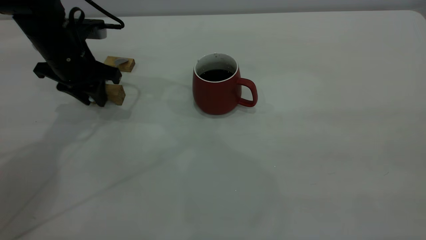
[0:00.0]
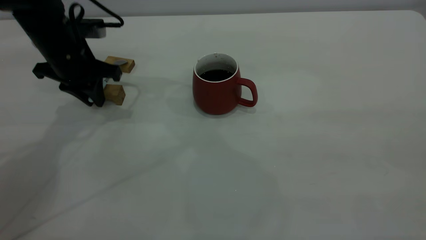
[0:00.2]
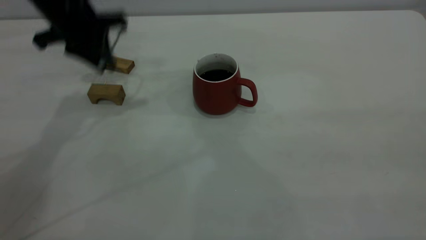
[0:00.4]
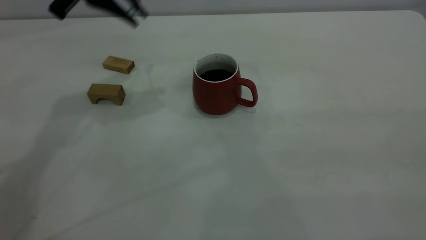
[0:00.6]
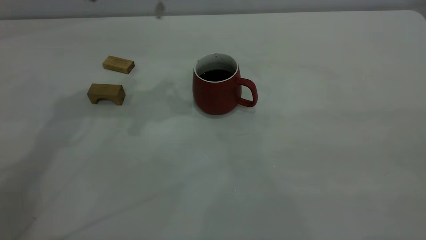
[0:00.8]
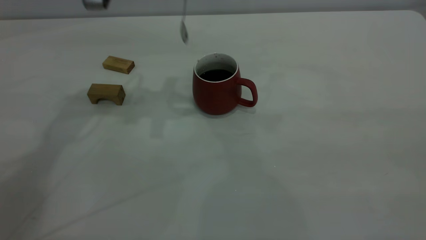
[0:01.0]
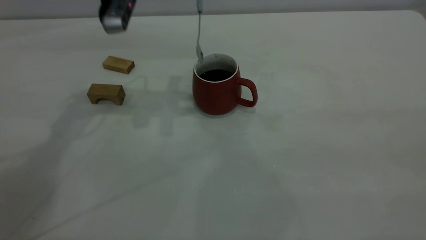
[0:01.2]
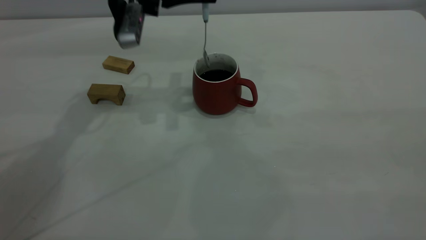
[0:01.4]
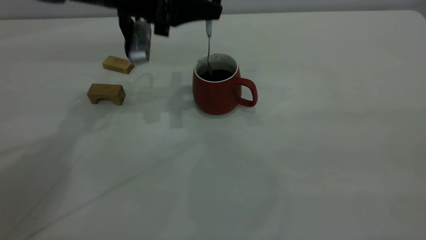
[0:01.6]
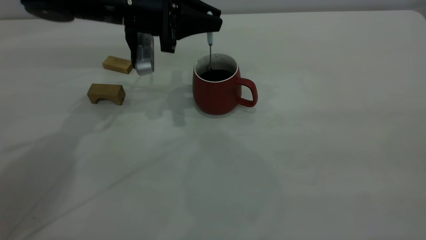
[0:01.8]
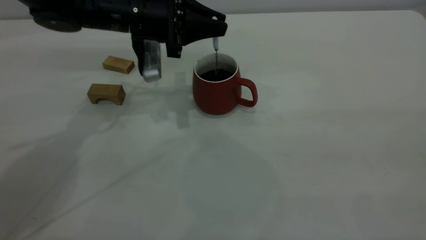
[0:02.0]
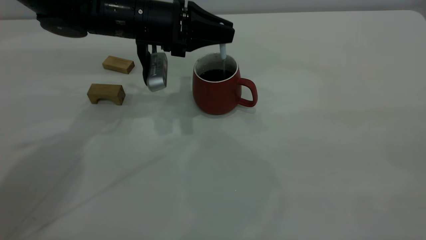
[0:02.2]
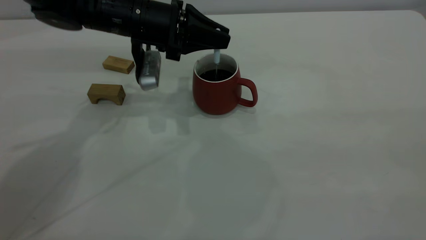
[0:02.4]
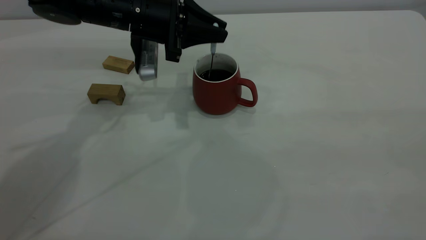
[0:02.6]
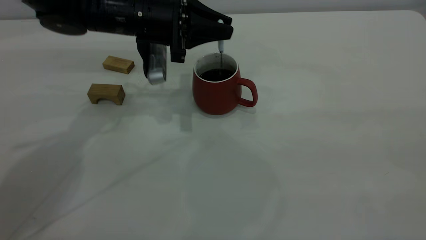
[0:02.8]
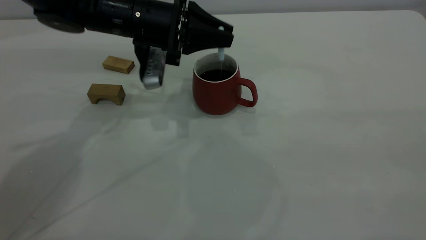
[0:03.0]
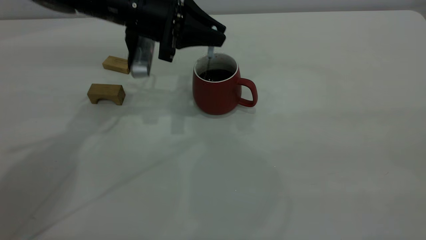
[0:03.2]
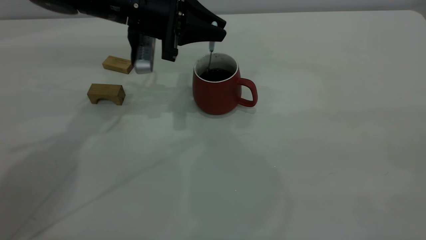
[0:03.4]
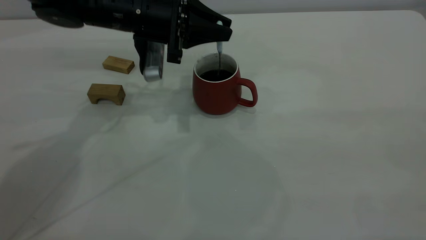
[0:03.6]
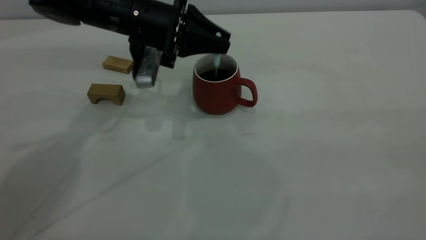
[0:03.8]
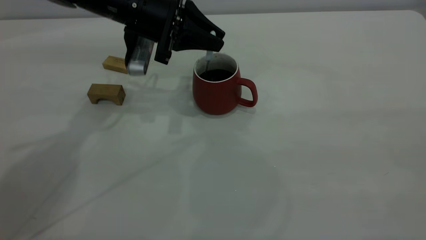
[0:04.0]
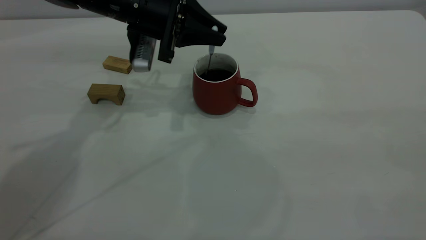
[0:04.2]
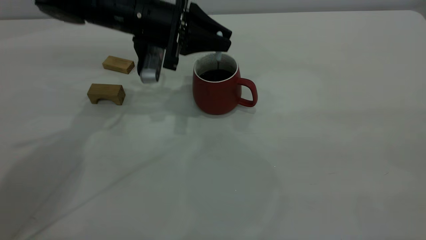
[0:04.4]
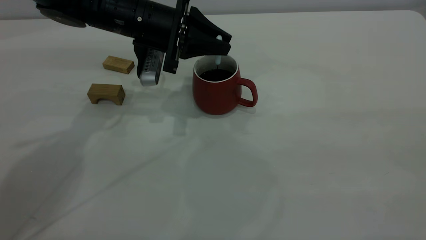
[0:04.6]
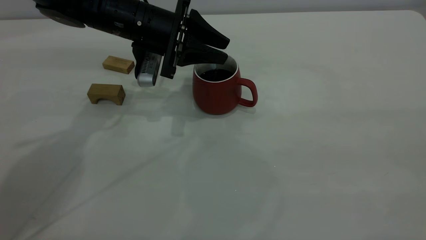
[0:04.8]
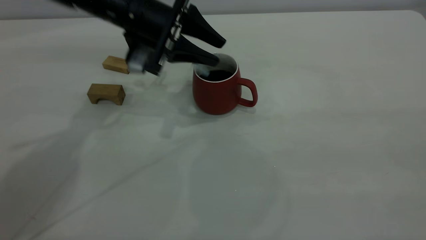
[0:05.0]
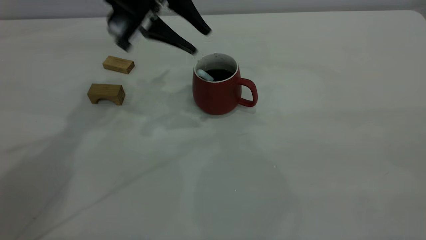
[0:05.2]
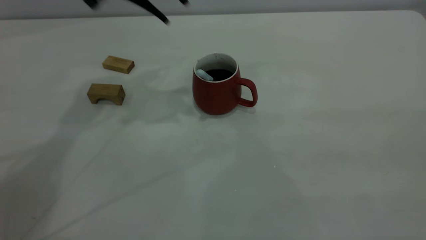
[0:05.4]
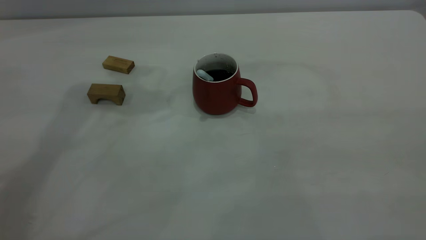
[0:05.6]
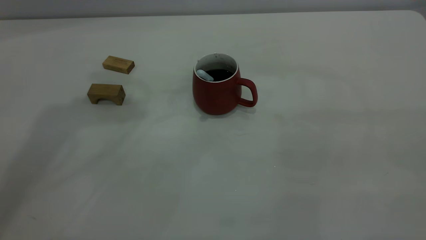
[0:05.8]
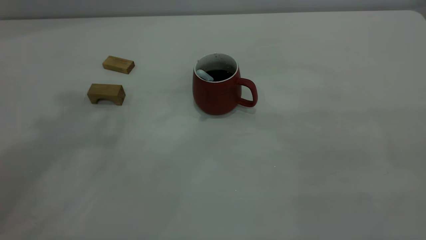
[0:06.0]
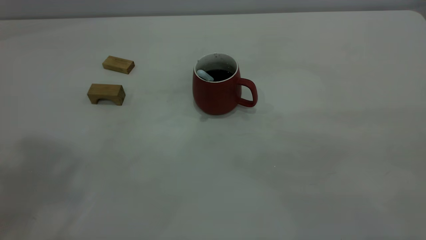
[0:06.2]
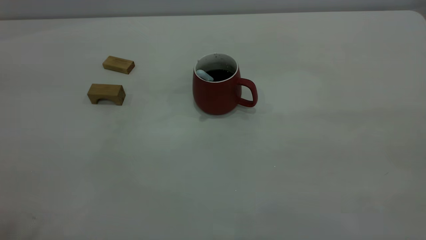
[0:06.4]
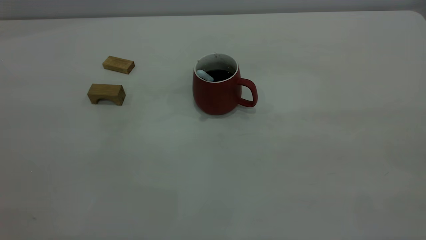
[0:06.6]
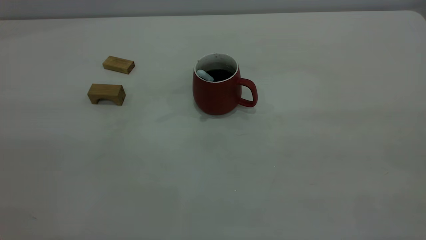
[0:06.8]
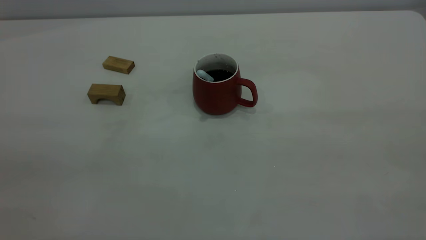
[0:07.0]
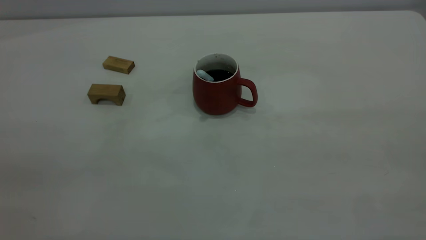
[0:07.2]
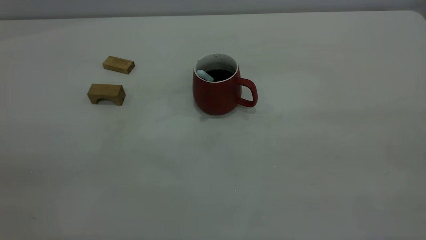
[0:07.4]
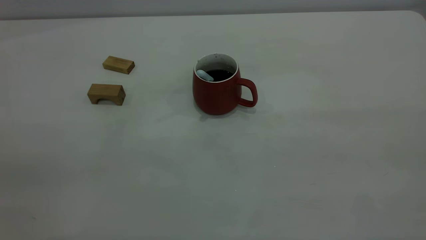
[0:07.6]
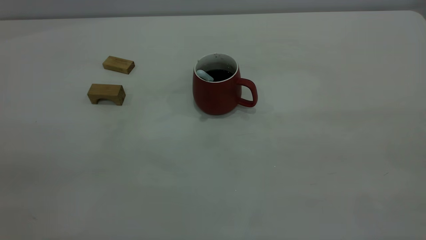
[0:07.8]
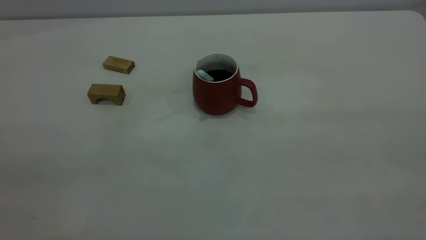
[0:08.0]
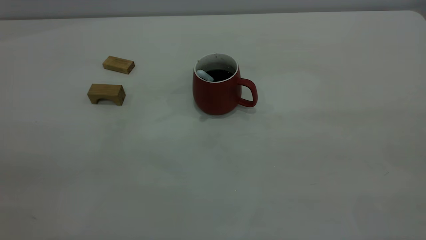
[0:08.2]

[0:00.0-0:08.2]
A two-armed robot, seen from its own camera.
Step, 0:00.6 to 0:05.2: Stir the coffee in the cup.
0:00.0 to 0:01.6: The left gripper is displaced to the right by roughly 10 cm, and reaches about 15 cm upward, then returns.
0:01.6 to 0:03.2: The grippers make only small movements.
0:03.2 to 0:05.0: The left gripper opens up.
0:05.0 to 0:06.6: The left gripper is displaced backward, upward and to the left by some 50 cm.

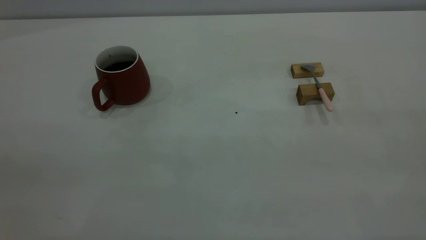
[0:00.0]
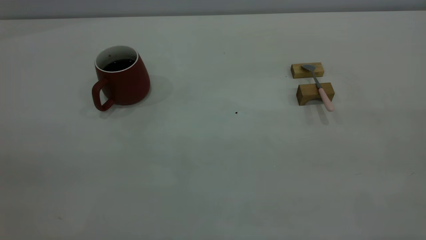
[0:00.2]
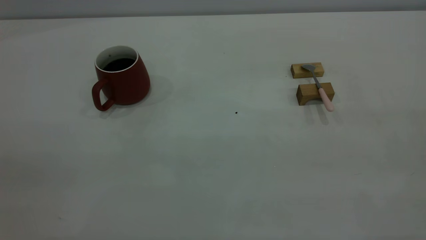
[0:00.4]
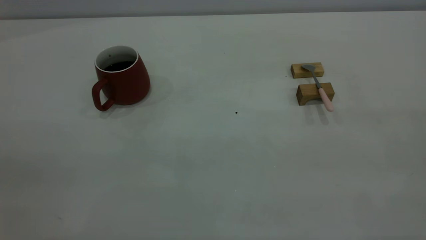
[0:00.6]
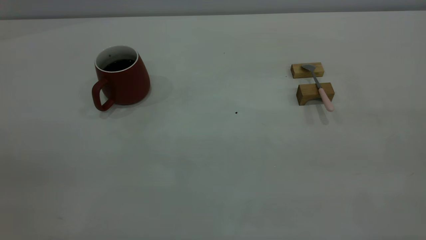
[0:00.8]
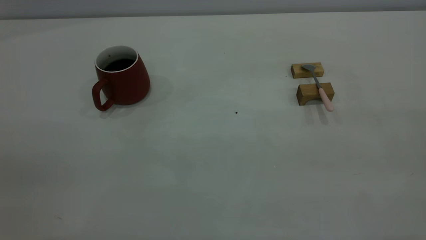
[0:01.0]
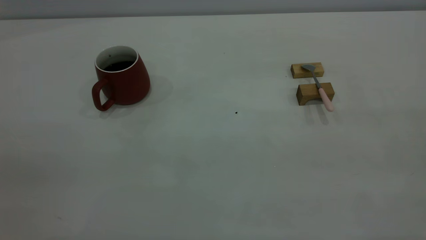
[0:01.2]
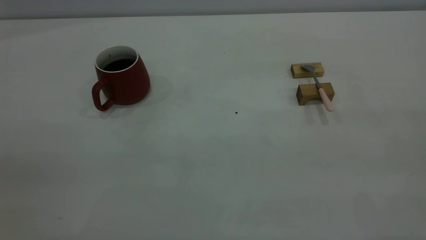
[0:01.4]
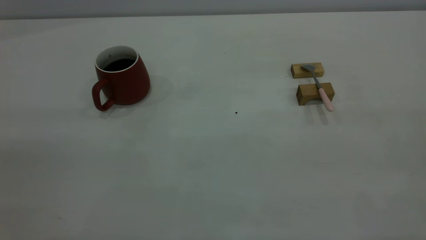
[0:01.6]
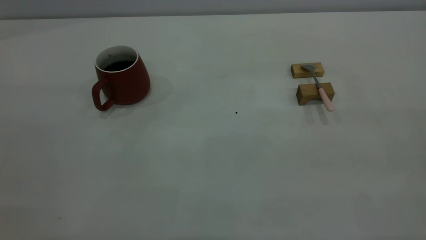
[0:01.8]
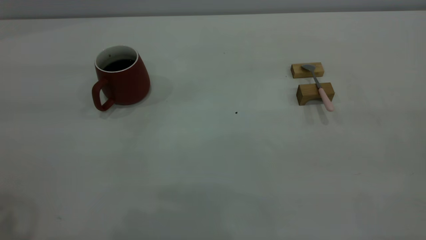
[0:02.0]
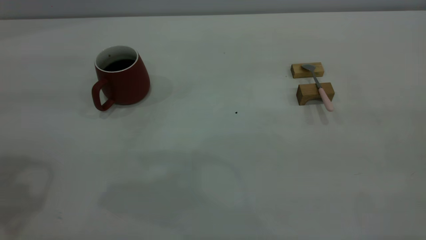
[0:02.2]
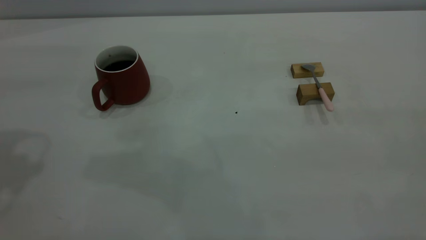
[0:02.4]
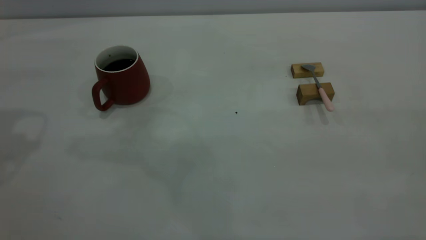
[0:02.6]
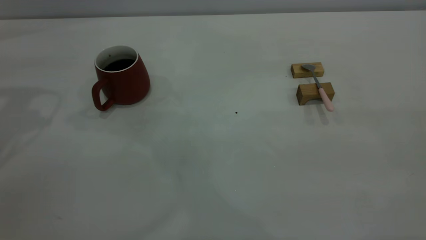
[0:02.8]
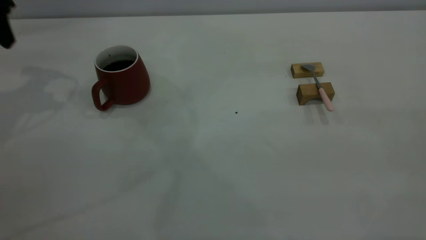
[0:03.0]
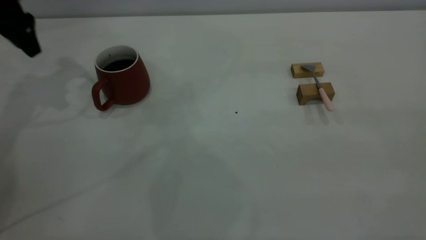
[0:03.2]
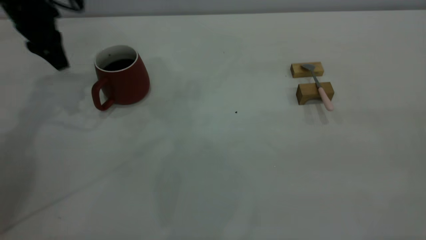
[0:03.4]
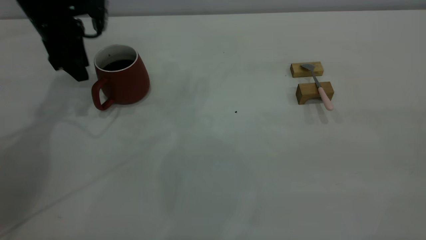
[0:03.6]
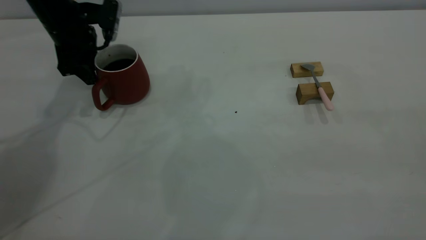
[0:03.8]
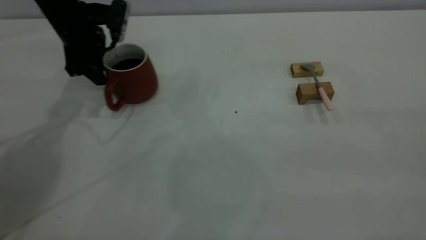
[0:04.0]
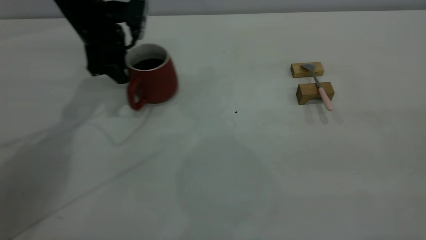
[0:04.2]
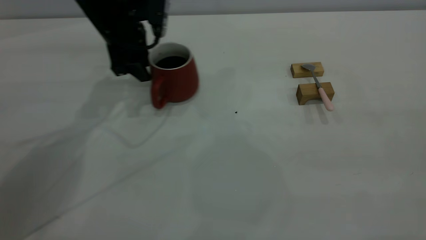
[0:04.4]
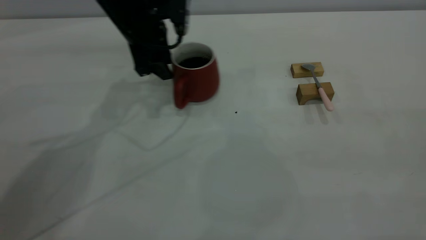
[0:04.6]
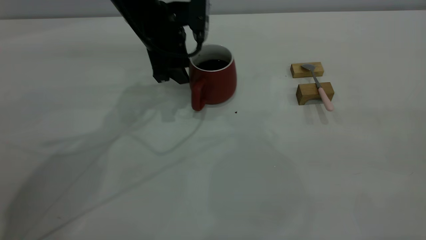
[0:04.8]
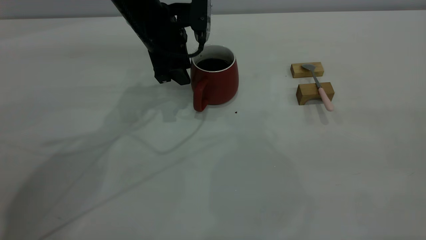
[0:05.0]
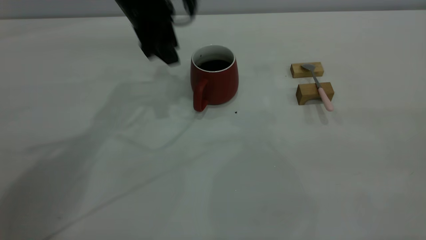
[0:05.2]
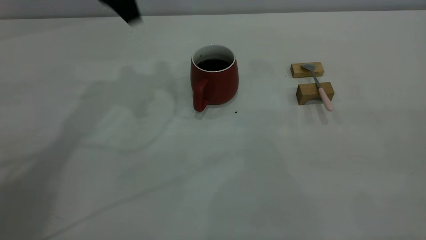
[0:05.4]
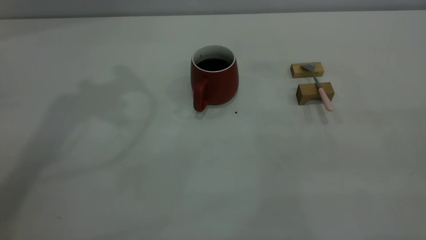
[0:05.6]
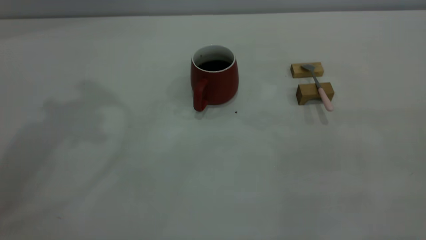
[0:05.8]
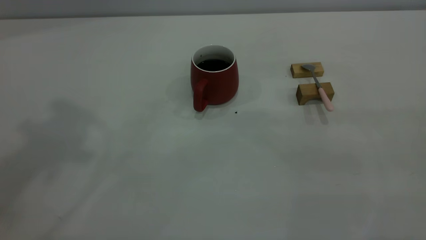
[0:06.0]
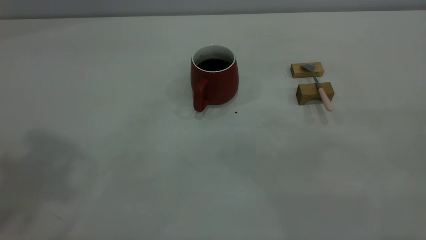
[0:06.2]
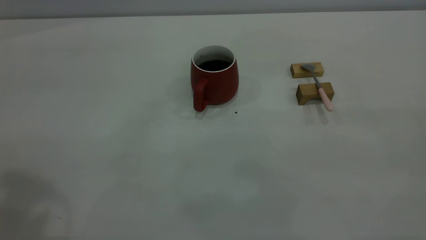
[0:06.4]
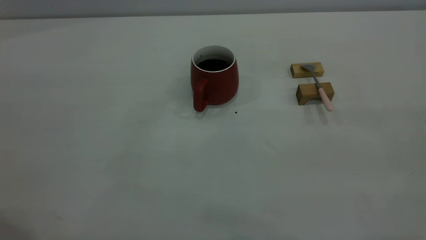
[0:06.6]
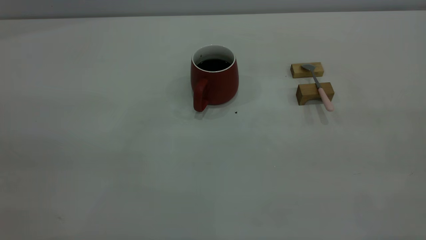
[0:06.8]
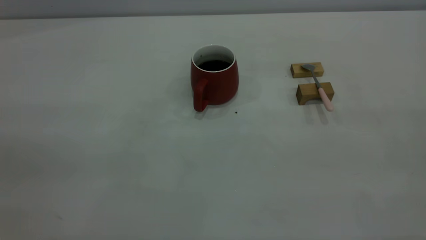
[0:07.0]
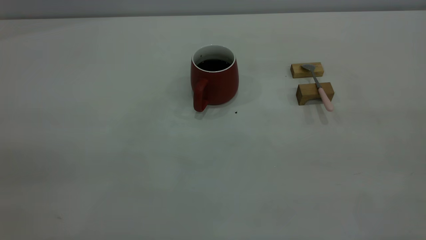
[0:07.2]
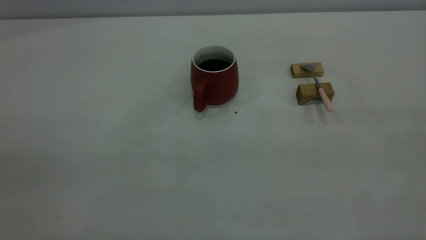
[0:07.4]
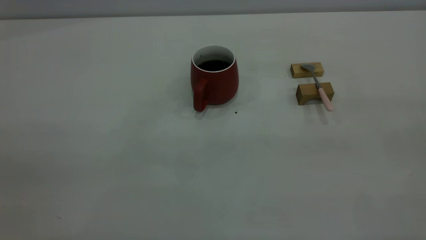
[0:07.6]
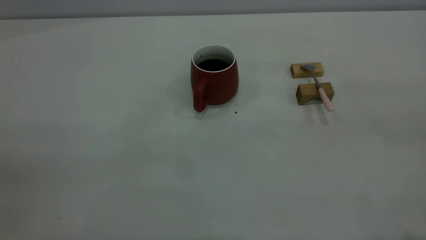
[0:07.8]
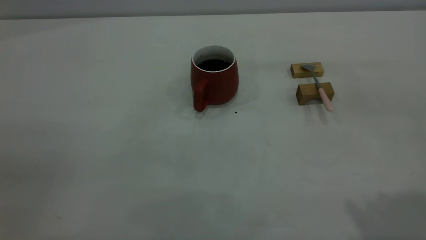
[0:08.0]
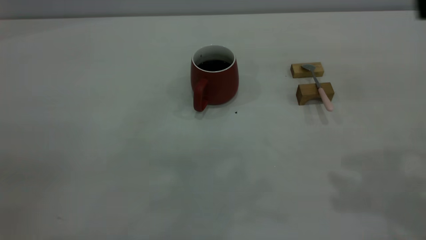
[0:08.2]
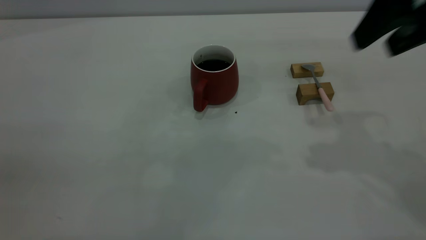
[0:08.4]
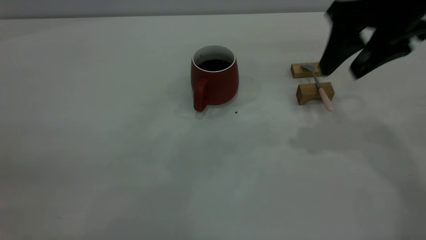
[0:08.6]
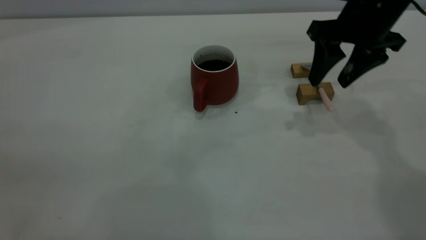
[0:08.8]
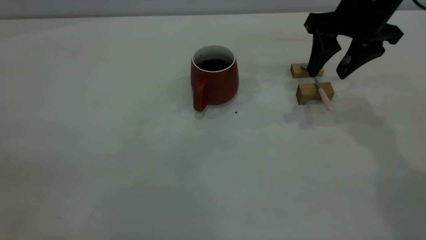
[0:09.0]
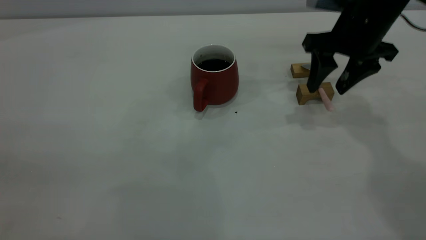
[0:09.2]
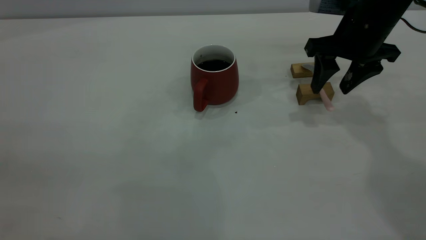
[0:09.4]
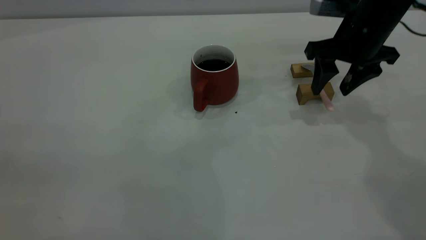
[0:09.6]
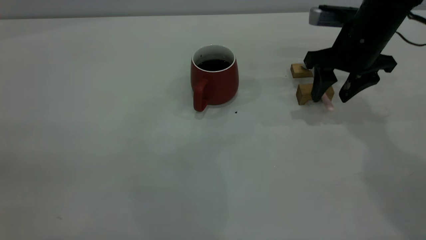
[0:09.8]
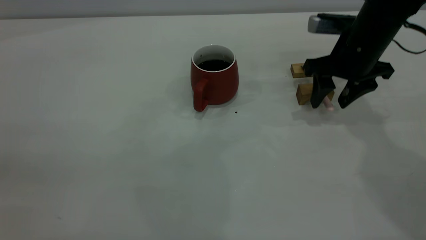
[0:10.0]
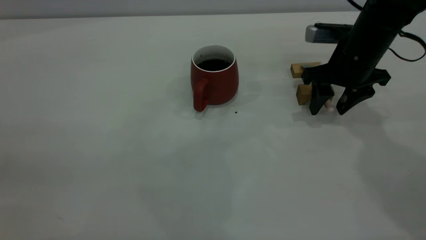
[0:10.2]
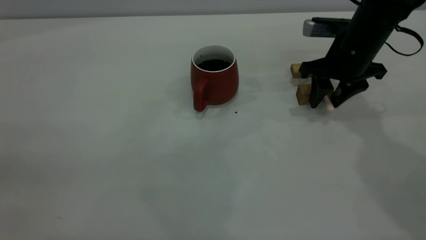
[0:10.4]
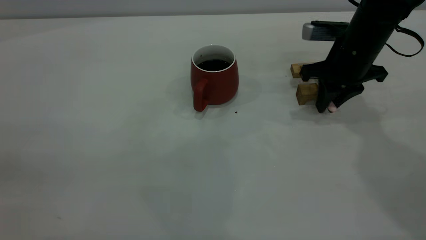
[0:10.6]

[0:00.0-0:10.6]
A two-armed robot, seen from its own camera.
Step, 0:00.0 to 0:05.2: Move the cup with coffee to the center of view.
0:03.0 to 0:04.6: The left gripper travels to the right by approximately 25 cm.
0:04.6 to 0:06.0: The left gripper shifts about 40 cm upward and backward.
0:07.6 to 0:09.0: The right gripper heads forward and downward, covering about 40 cm, and opens up.
0:09.0 to 0:10.6: The right gripper heads downward, covering approximately 10 cm, and closes.
